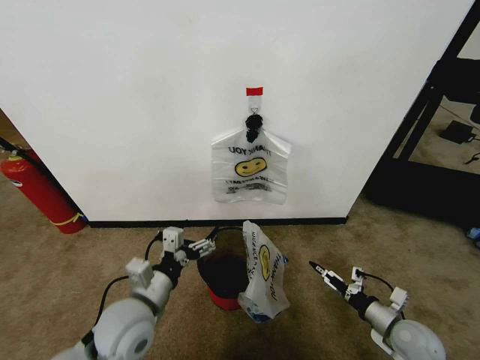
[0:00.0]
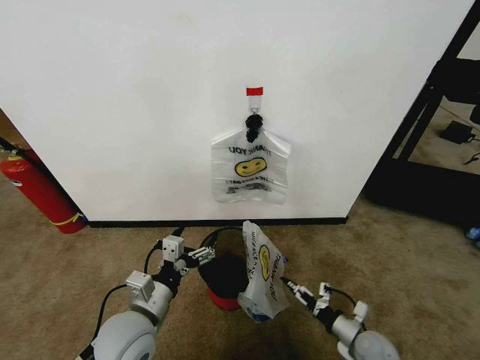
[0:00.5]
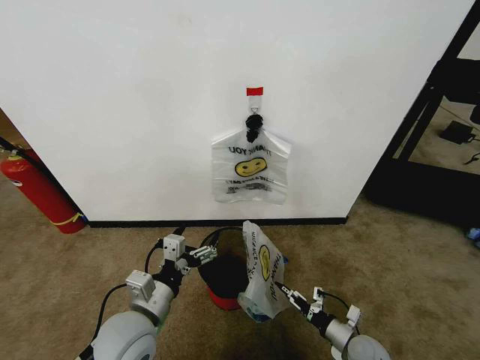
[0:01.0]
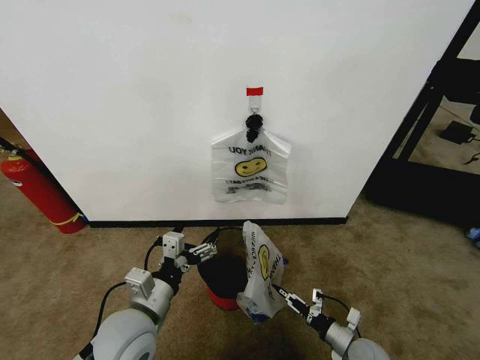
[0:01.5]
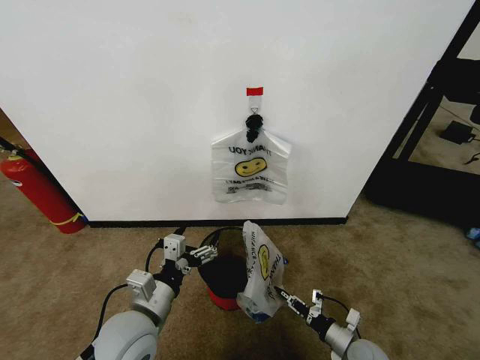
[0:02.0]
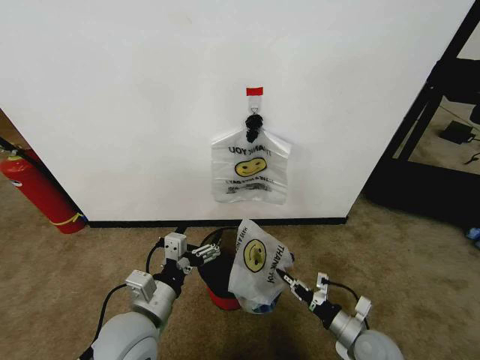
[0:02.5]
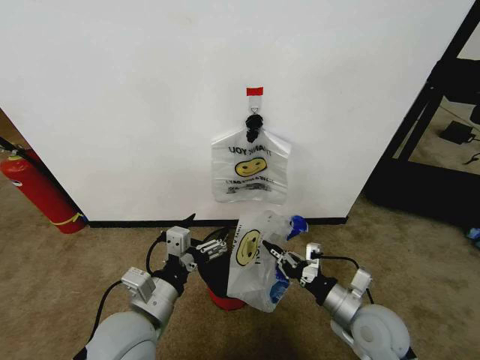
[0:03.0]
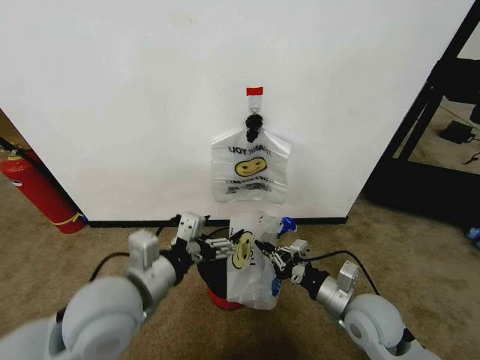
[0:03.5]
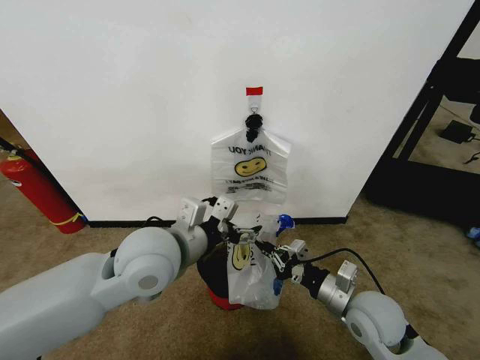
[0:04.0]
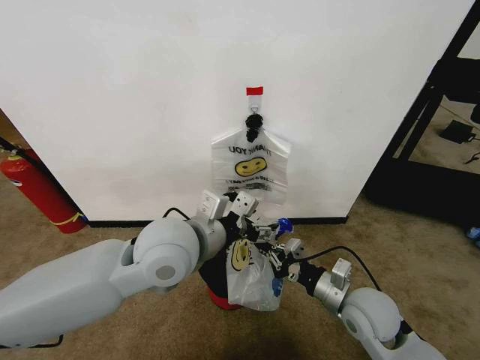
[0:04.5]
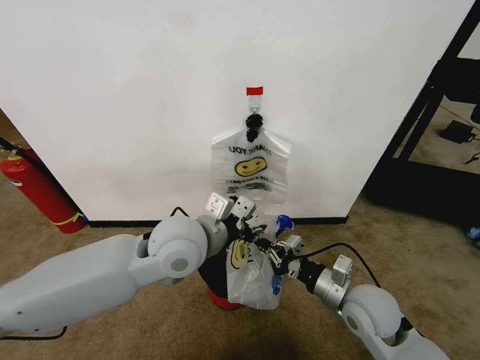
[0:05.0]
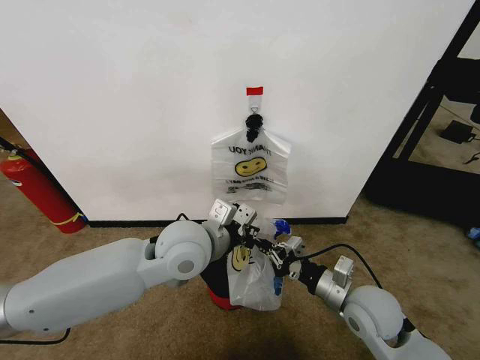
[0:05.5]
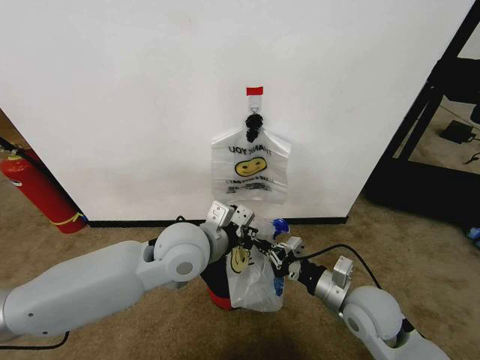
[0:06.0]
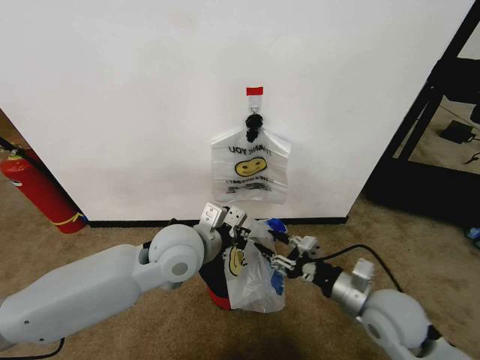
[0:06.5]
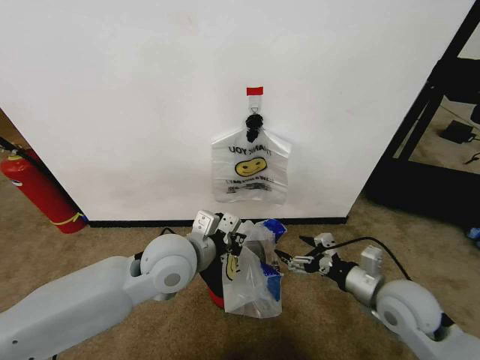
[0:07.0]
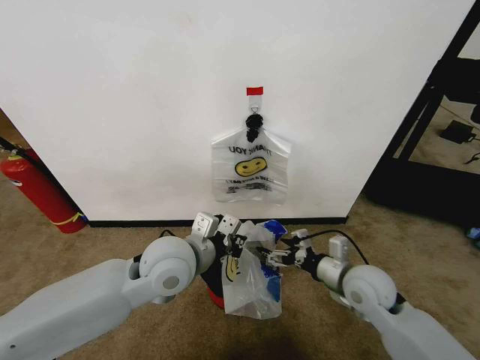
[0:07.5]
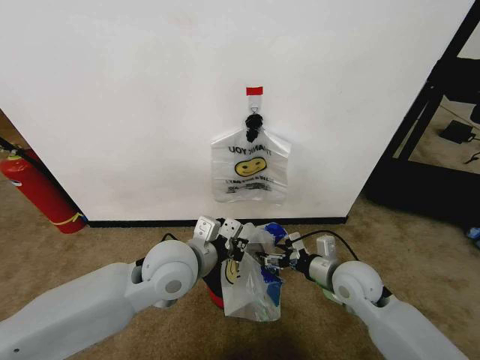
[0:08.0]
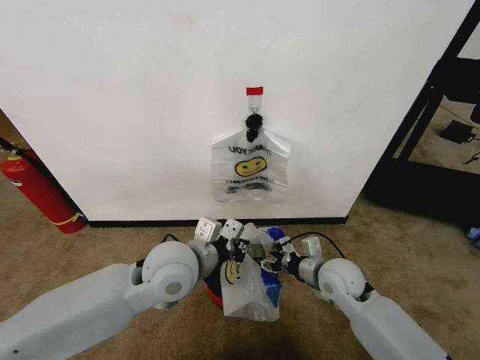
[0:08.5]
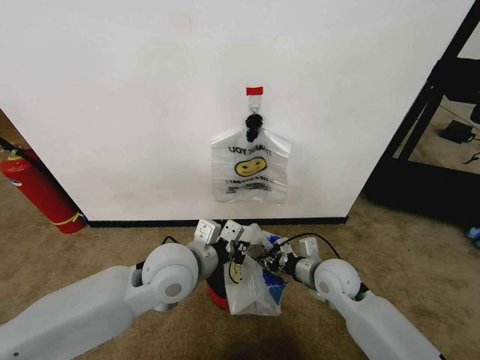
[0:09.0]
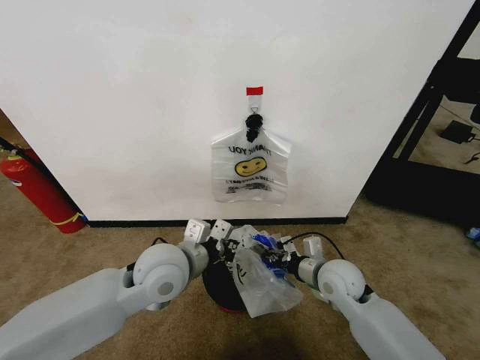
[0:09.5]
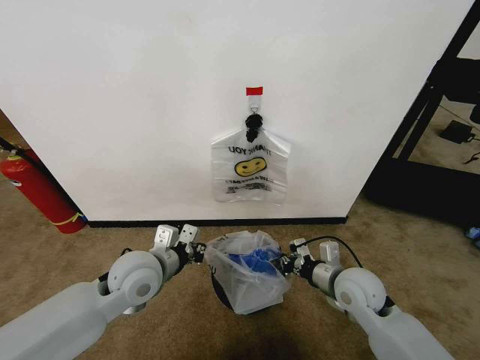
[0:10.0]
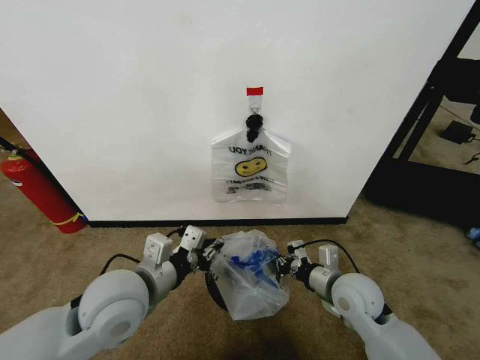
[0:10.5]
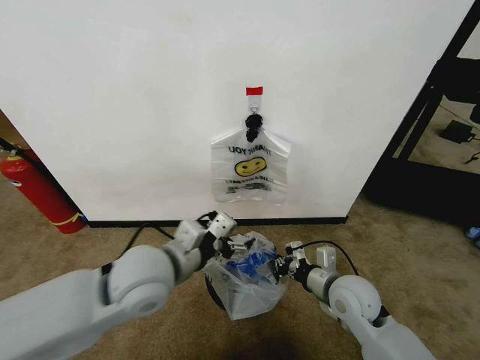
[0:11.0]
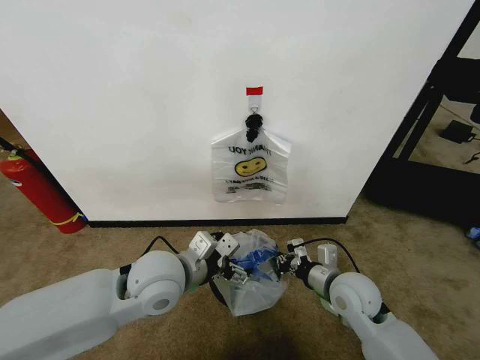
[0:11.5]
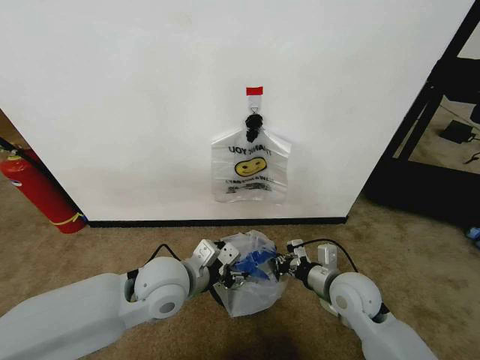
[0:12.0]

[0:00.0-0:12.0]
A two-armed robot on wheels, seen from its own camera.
Task of the whole recording: Pick up the garbage bag from the wall and place it over the trash bin.
0:00.0 to 0:02.0: The right gripper goes some 10 cm downward and to the left, and closes up.
0:02.0 to 0:04.0: The right gripper moves upward, about 20 cm. Meanwhile the left gripper travels upward and forward by some 15 cm.
0:04.0 to 0:06.0: The left gripper moves roughly 5 cm, and closes.
0:06.0 to 0:08.0: The right gripper shifts approximately 5 cm forward, and opens its fingers.
0:08.0 to 0:10.0: The right gripper closes up; the left gripper shifts approximately 10 cm to the left.
0:10.0 to 0:12.0: The left gripper travels to the right by about 5 cm, and opens up.

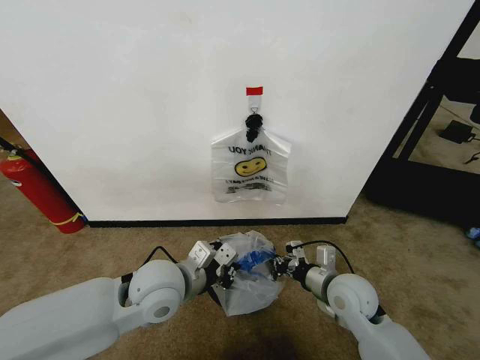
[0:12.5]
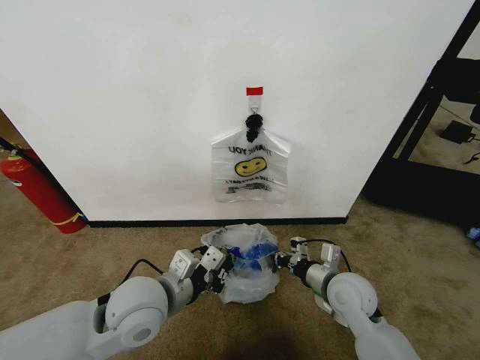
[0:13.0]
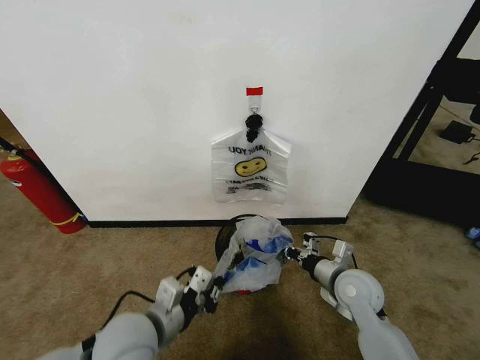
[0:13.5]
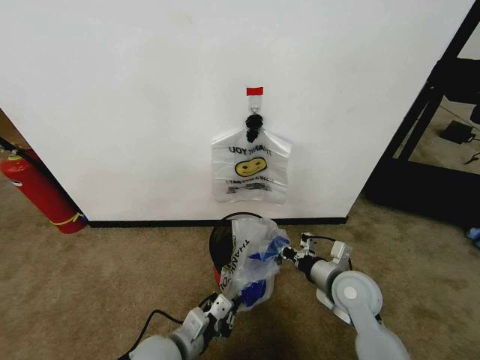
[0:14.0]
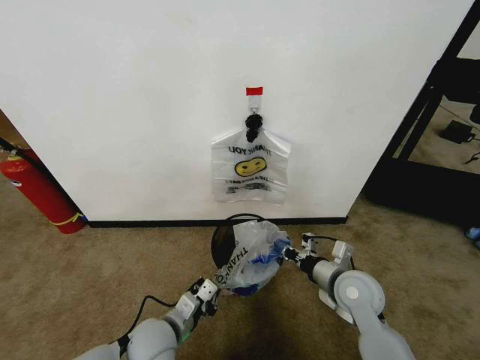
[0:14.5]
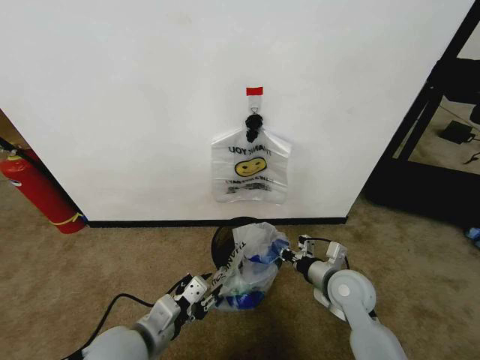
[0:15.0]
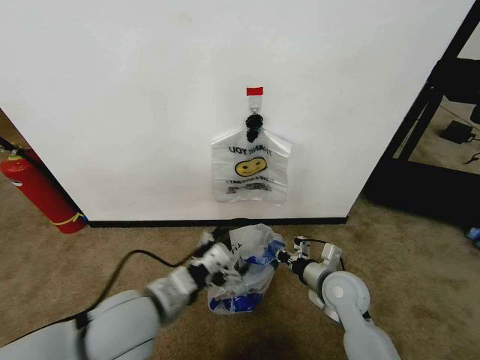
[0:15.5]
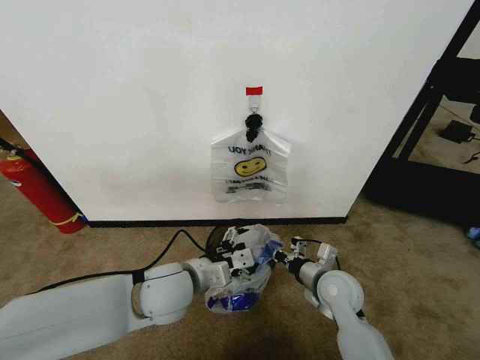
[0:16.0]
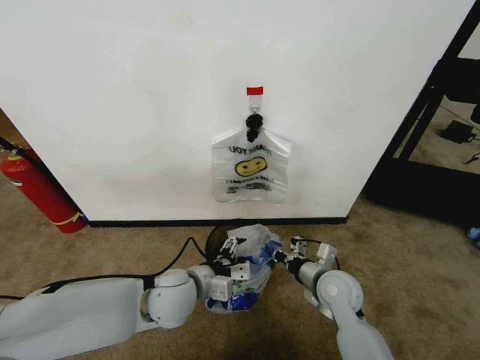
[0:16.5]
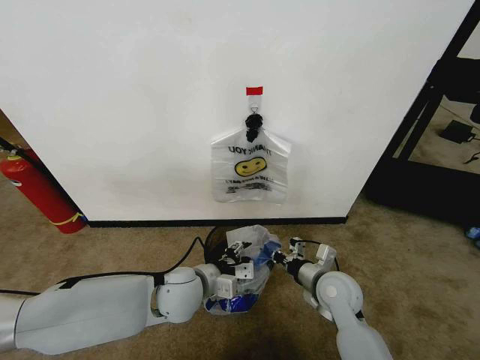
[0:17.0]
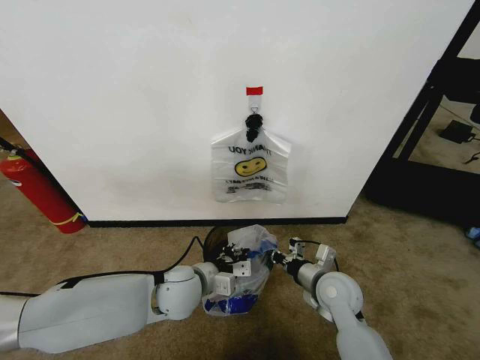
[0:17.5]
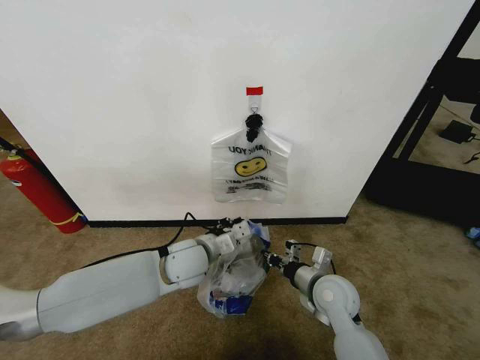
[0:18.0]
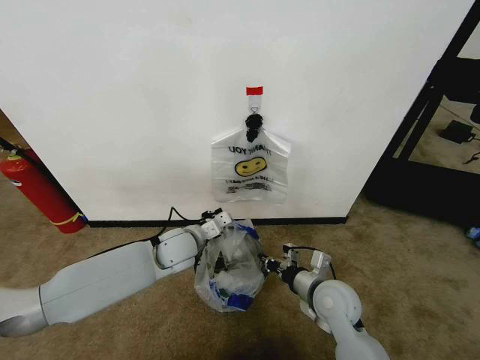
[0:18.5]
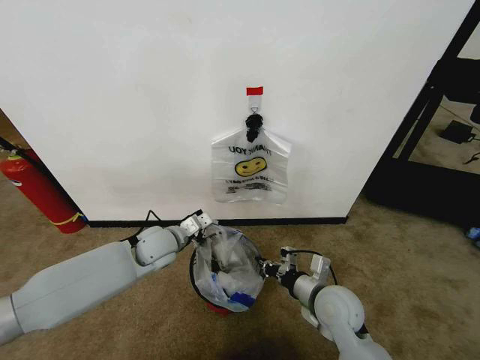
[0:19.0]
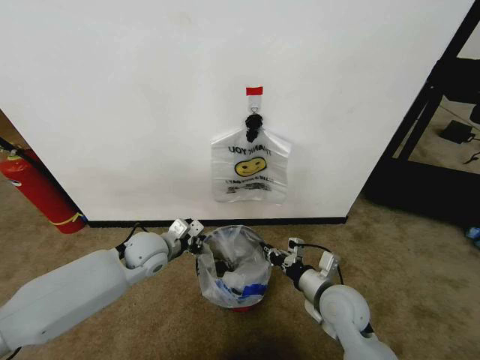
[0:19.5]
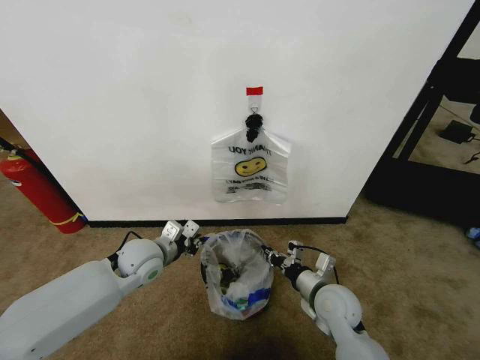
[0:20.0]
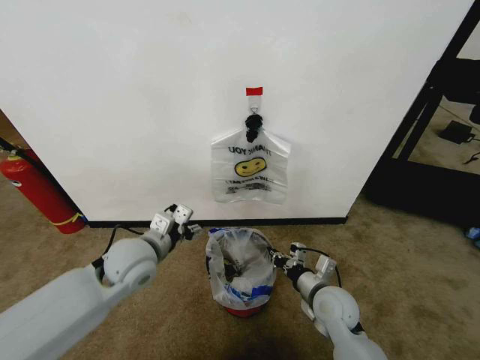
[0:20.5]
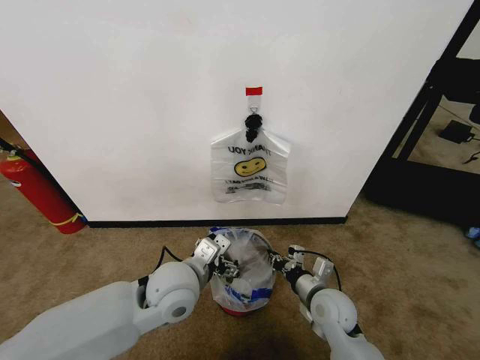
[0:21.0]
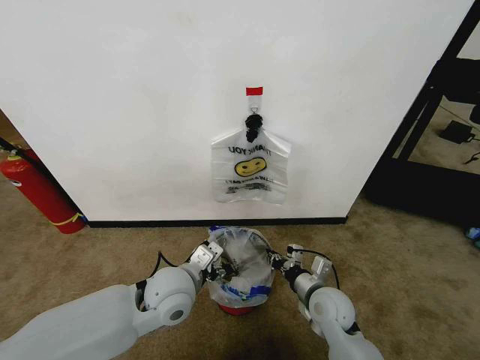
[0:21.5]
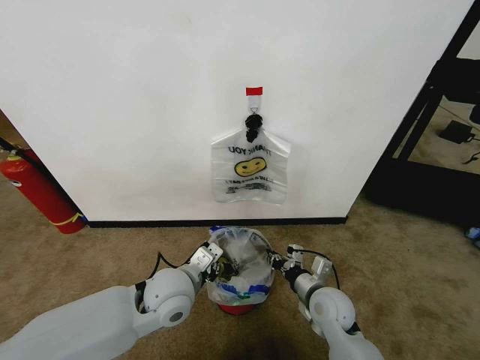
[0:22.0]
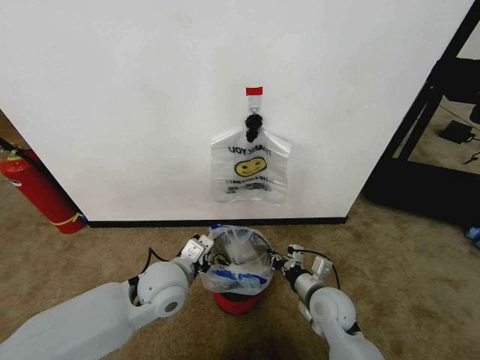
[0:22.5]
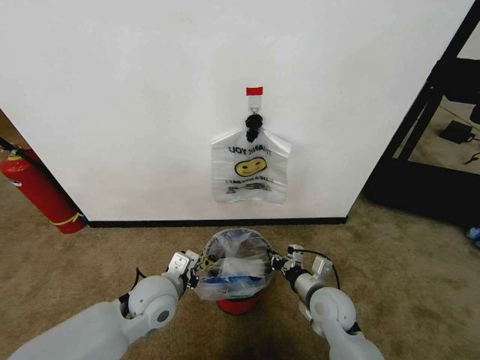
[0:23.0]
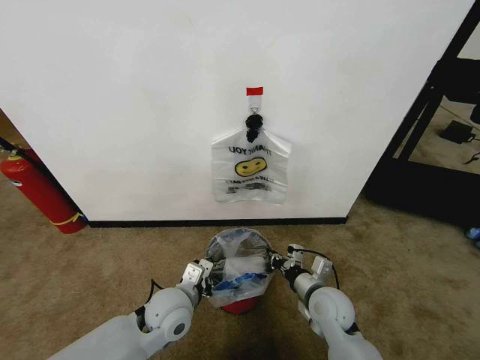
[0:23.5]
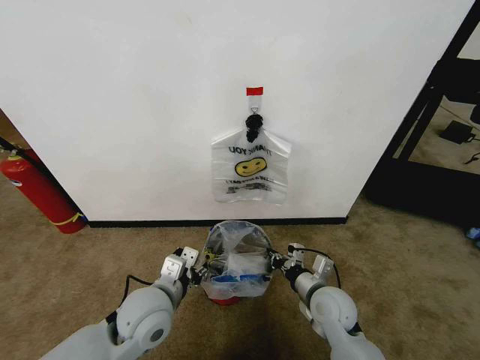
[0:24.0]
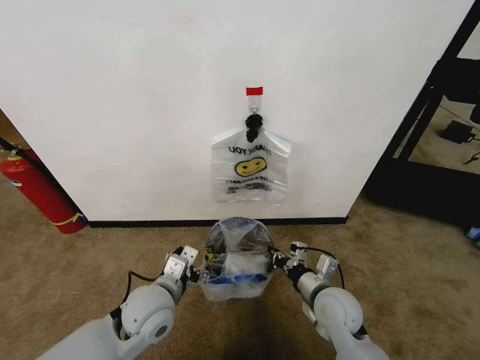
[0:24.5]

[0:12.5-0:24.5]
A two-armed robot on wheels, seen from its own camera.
Task of the whole recording: Pick up the garbage bag from the wall and place it over the trash bin.
0:12.5 to 0:14.5: The left gripper is displaced downward and backward by approximately 15 cm.
0:14.5 to 0:16.5: The left gripper is displaced upward and forward by about 10 cm, and opens.
0:16.5 to 0:18.5: The left gripper is displaced forward by roughly 10 cm, and closes.
0:18.5 to 0:20.5: The left gripper moves to the left, backward and upward, roughly 10 cm, and opens up.
0:20.5 to 0:22.5: The left gripper goes about 5 cm to the right, and closes up.
0:22.5 to 0:24.5: The left gripper opens its fingers.

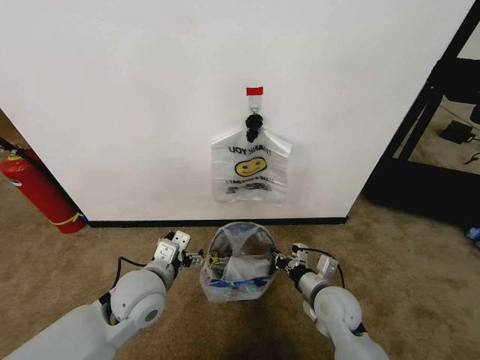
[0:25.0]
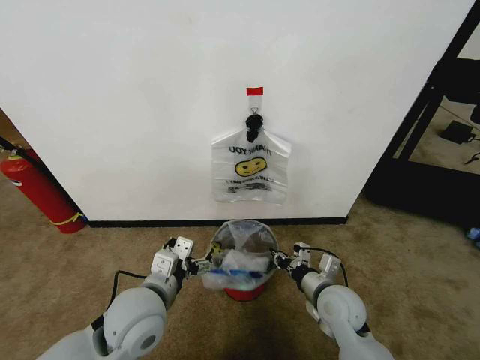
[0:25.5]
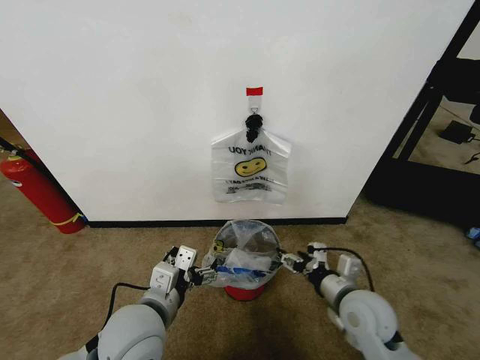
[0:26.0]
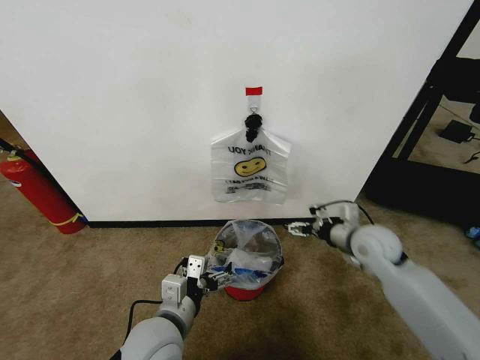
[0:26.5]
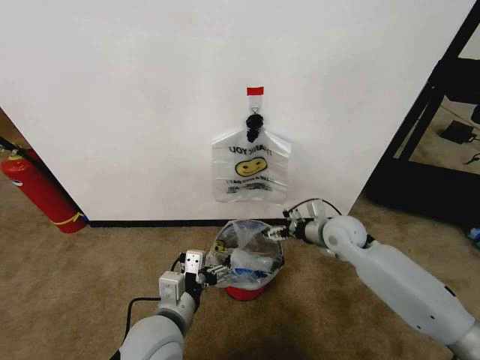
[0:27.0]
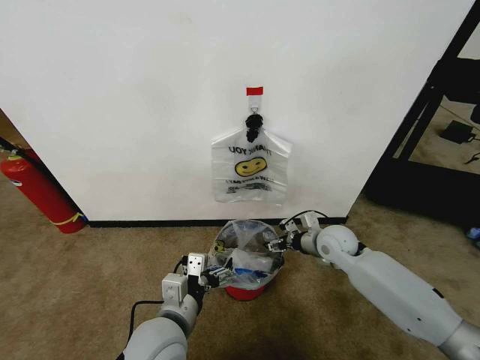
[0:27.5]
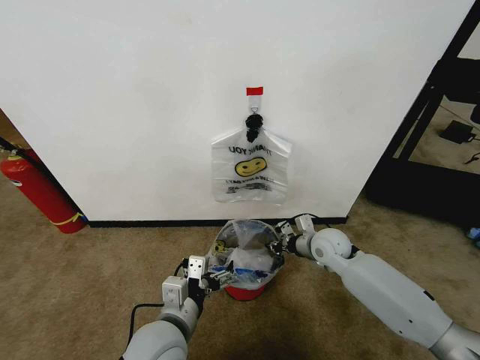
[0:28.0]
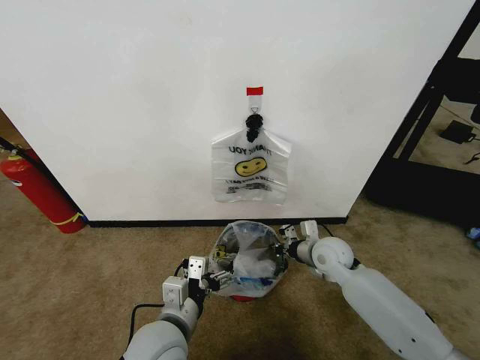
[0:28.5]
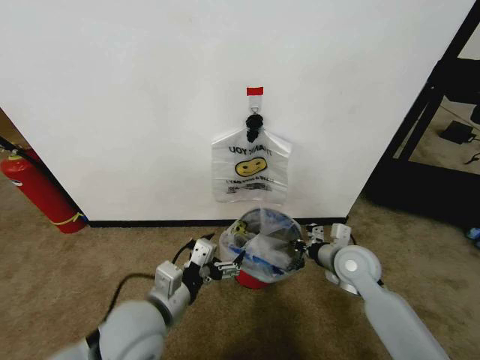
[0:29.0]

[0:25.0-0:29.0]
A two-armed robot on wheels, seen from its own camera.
Task of the whole recording: Pick up the garbage bag from the wall and place it over the trash bin.
0:25.0 to 0:27.0: The right gripper moves forward and upward, some 15 cm, and opens up. Meanwhile the left gripper shifts some 10 cm backward.
0:27.0 to 0:29.0: The right gripper shifts some 5 cm backward, and closes its fingers.
